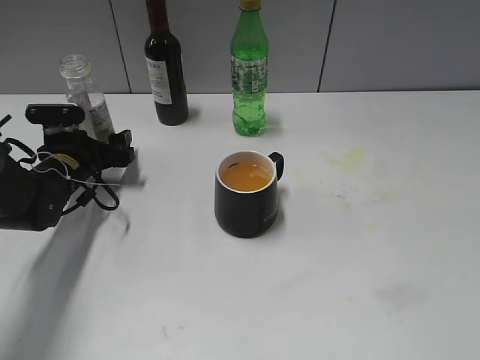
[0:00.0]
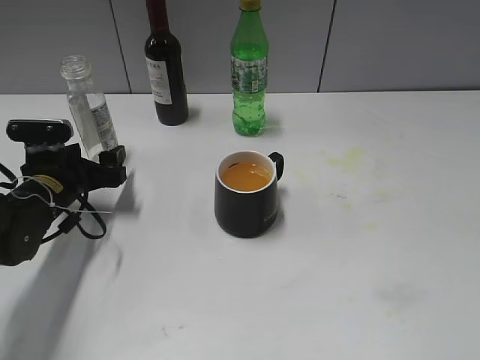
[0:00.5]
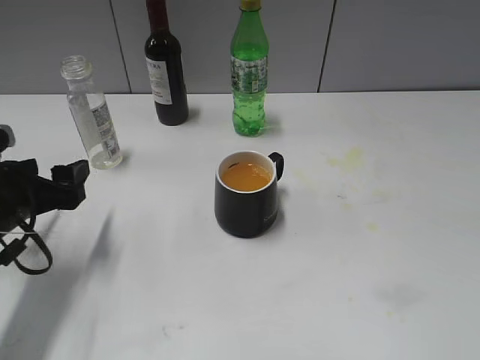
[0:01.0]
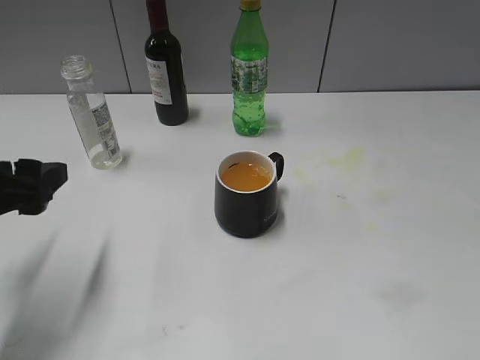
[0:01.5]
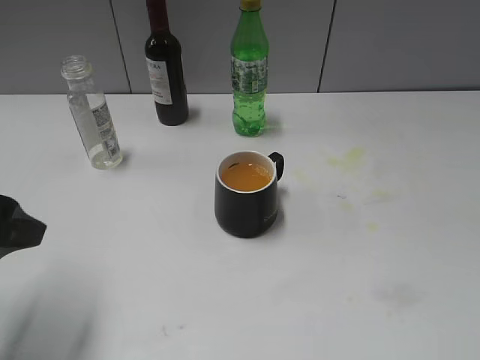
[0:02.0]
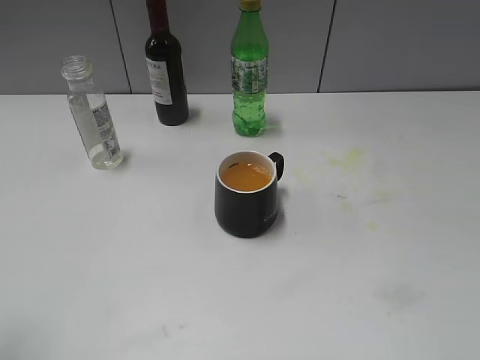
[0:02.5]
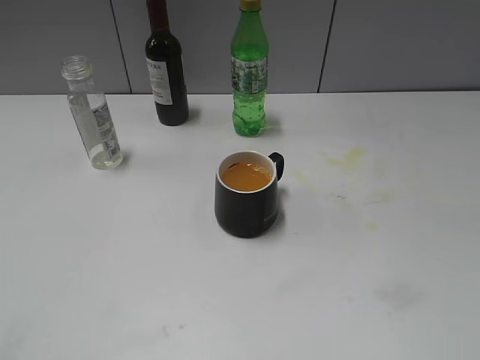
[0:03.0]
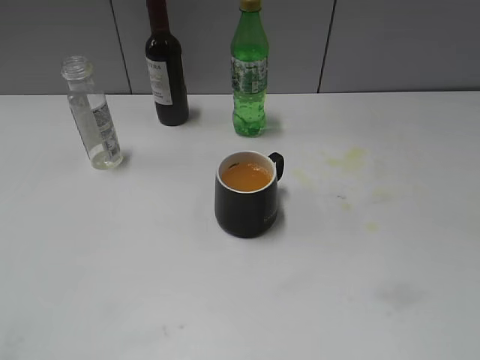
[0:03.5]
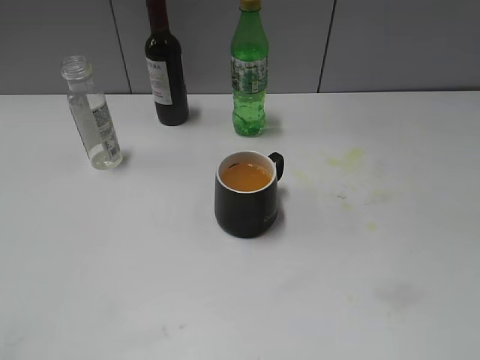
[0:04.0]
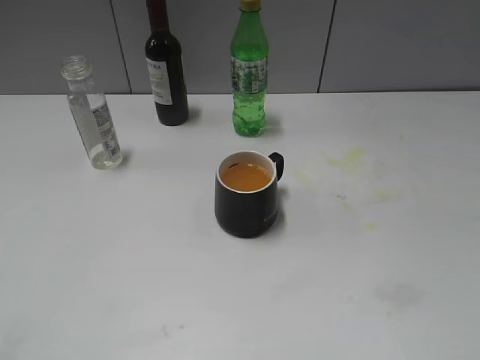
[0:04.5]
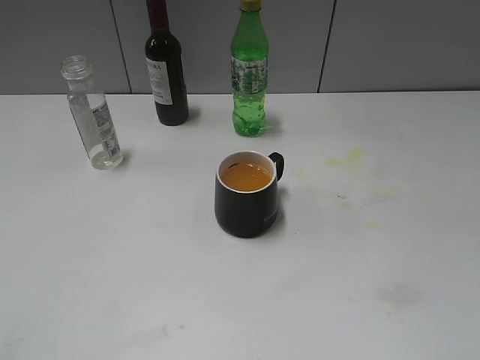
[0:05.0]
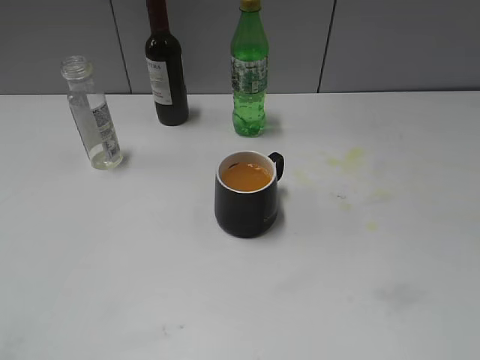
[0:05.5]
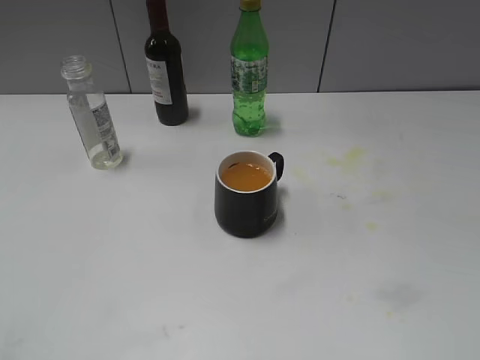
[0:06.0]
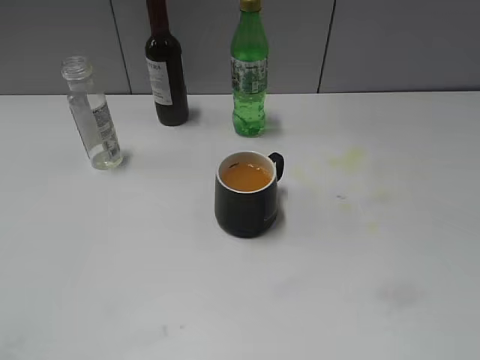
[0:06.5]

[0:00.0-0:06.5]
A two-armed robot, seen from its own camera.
0:00.0 to 0:02.0: The left gripper shifts approximately 25 cm backward and upward.
0:02.0 to 0:04.5: The left gripper travels backward by some 15 cm.
